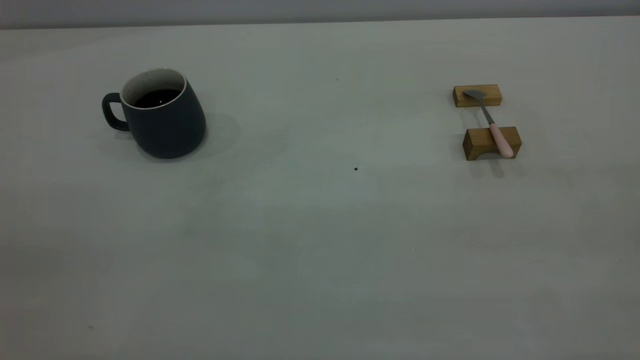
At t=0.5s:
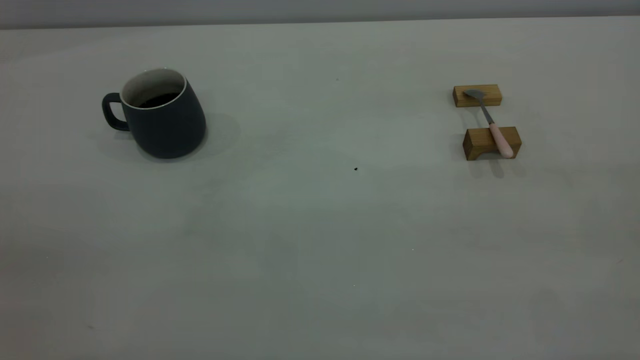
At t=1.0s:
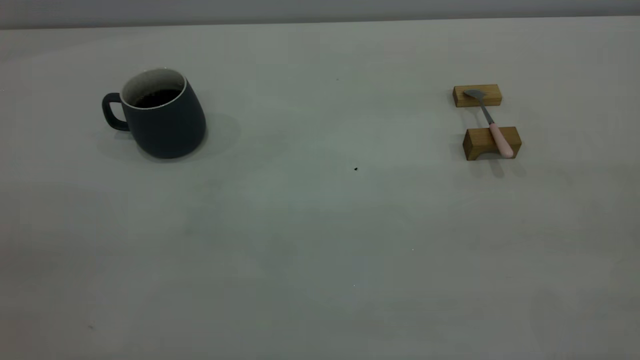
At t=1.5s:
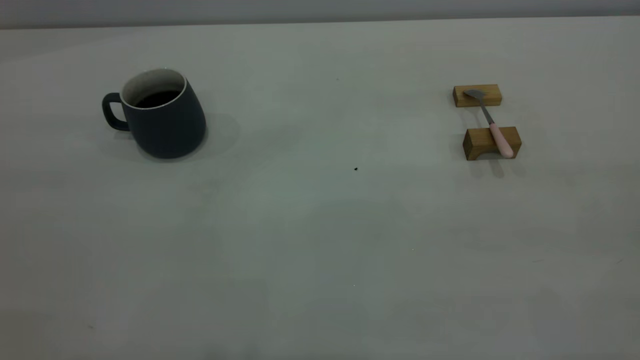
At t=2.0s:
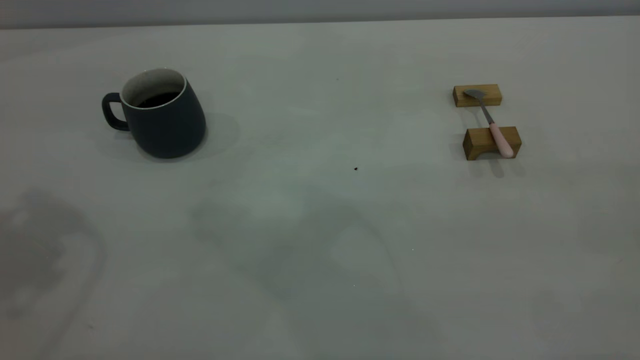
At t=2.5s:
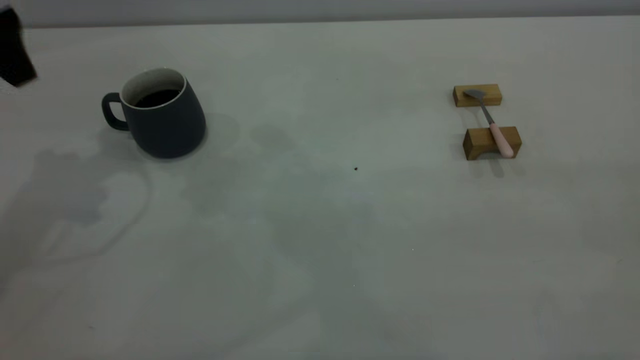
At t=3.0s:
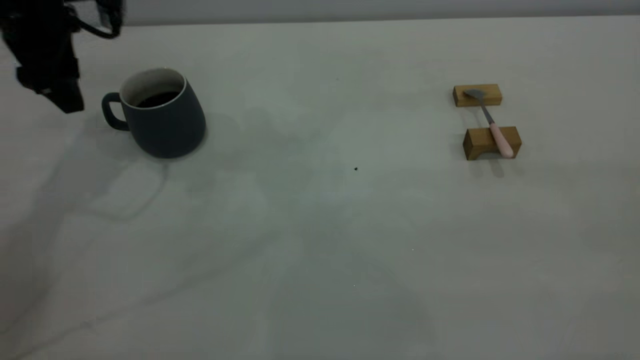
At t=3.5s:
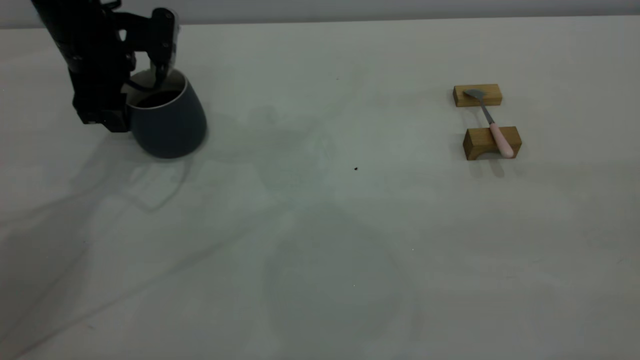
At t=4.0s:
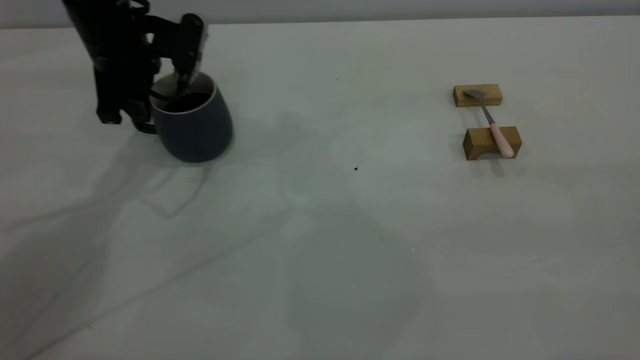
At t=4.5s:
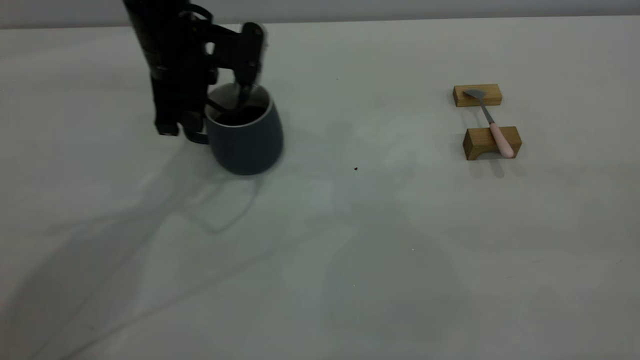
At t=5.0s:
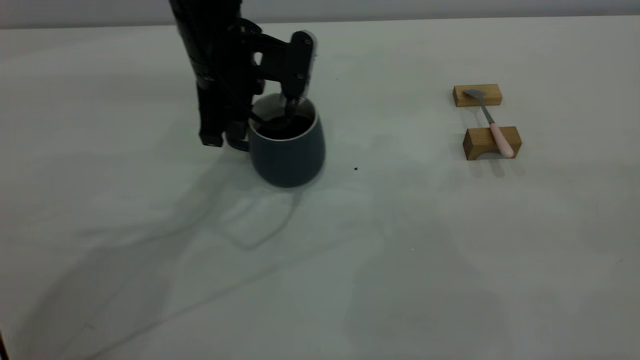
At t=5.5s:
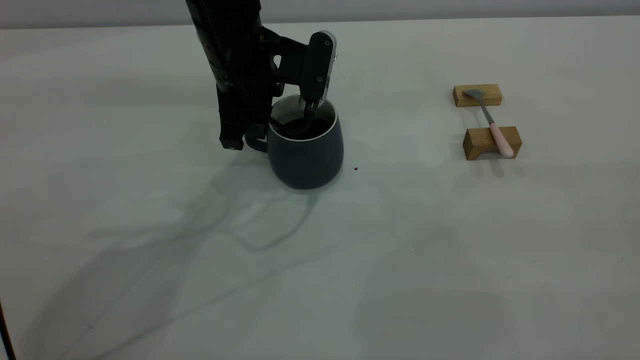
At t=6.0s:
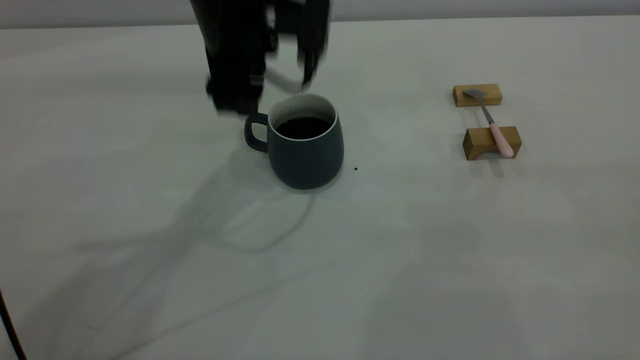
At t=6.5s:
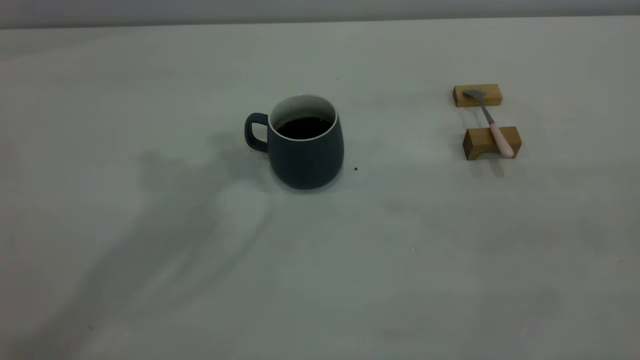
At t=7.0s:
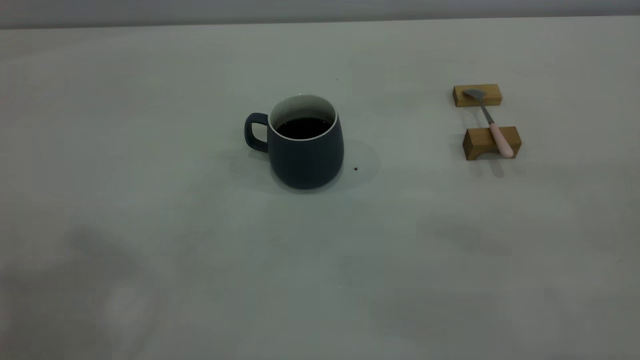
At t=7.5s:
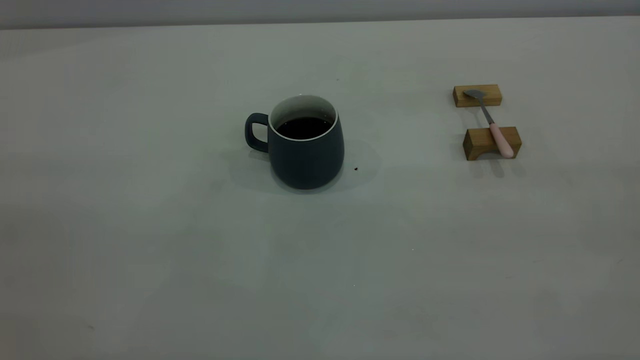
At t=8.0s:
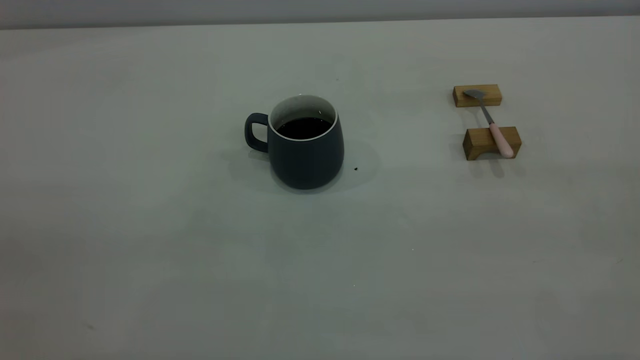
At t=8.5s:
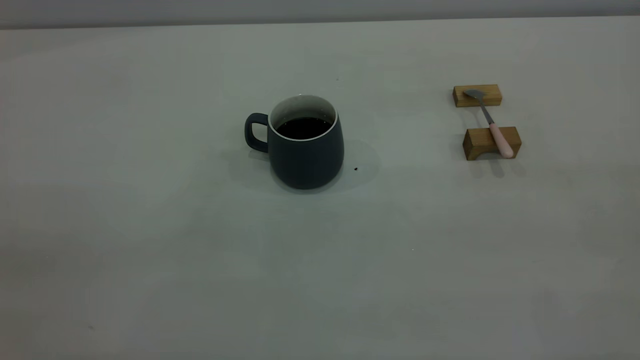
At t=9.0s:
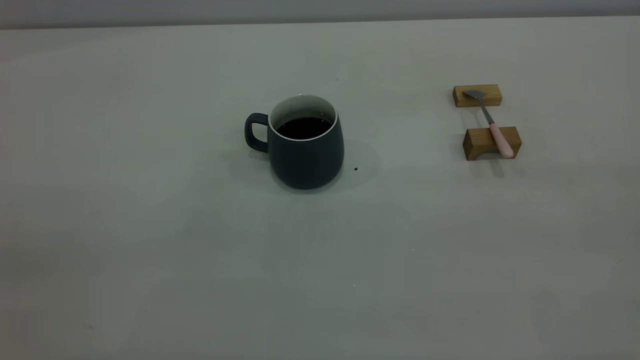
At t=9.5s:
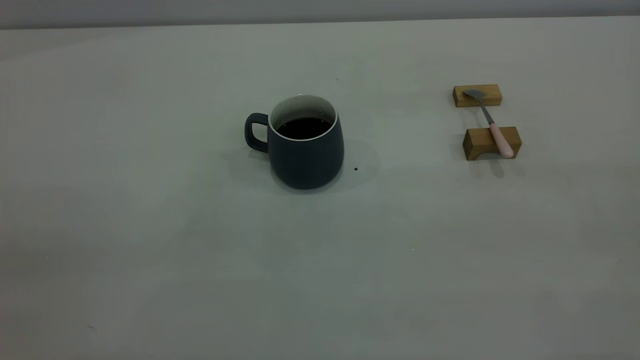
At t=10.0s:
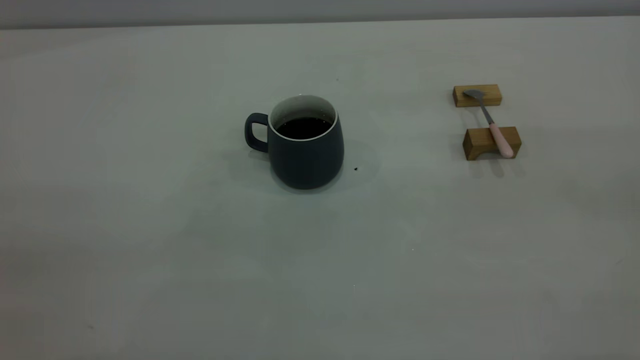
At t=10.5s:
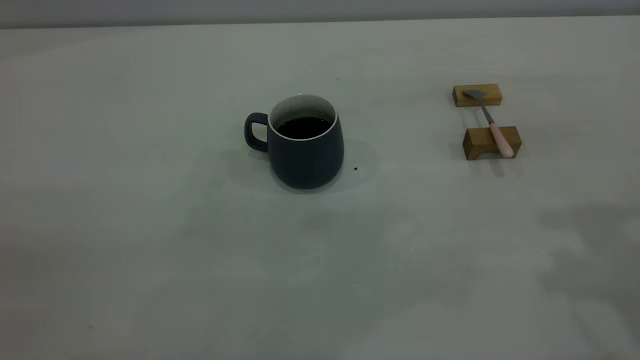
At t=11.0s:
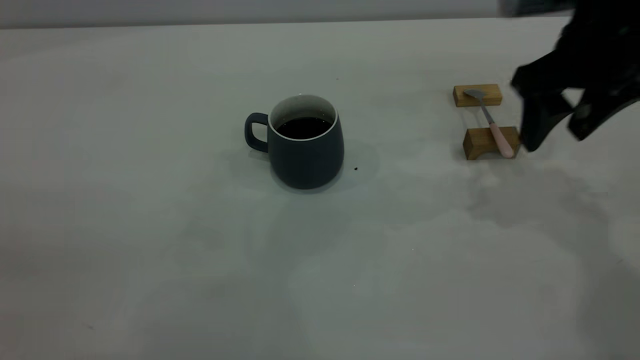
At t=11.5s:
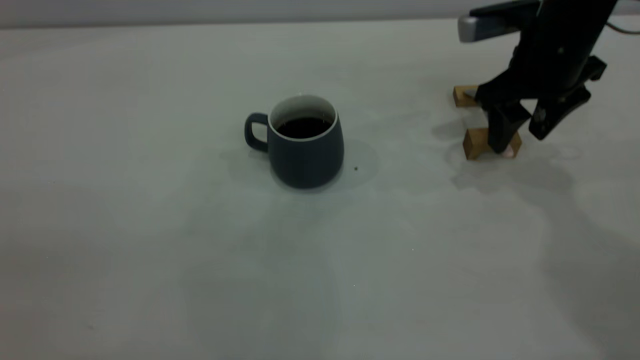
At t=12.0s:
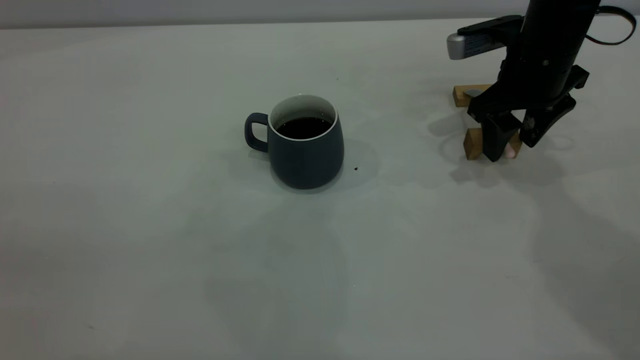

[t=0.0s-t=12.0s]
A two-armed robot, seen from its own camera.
Step, t=0.0s to t=6.0s: Move the cup with coffee to the center of view.
t=2.0s to t=4.0s: The left gripper moves downward and forward, approximately 30 cm, and closes.
t=4.0s to t=6.0s: The left gripper goes approximately 15 cm to the right and upward, and opens up.
t=6.0s to t=8.0s: The left gripper moves backward, to the left and upward, some 50 cm, and closes its fingers.
t=10.0s to t=12.0s: The right gripper moves forward and downward, approximately 40 cm.

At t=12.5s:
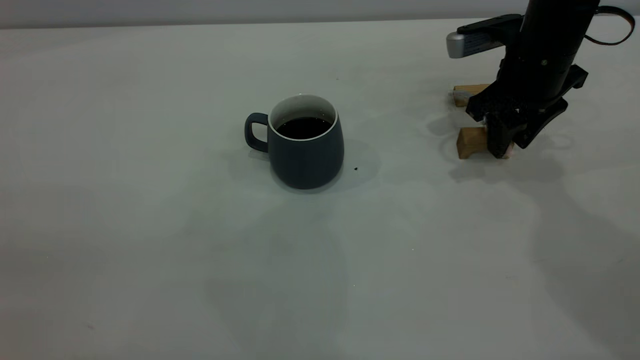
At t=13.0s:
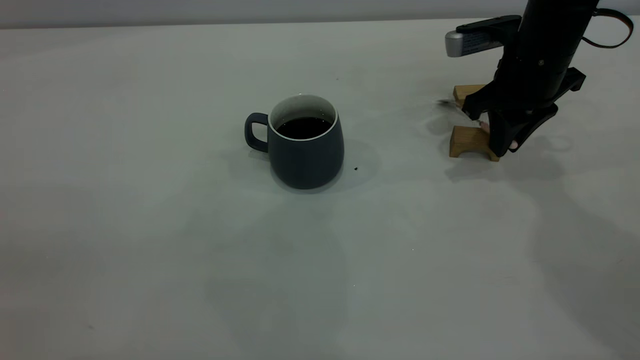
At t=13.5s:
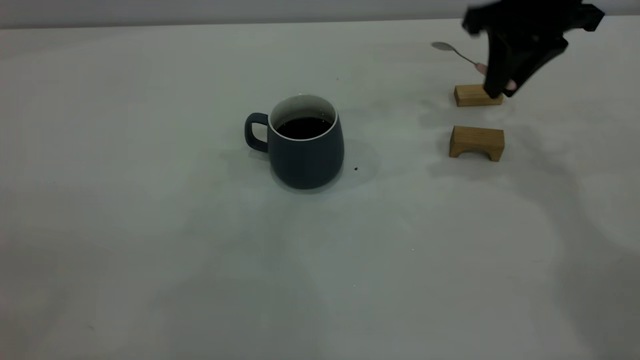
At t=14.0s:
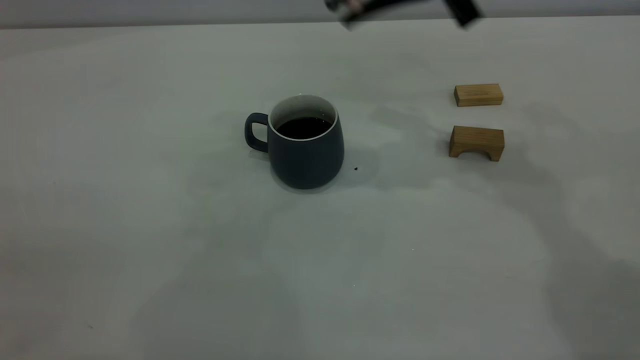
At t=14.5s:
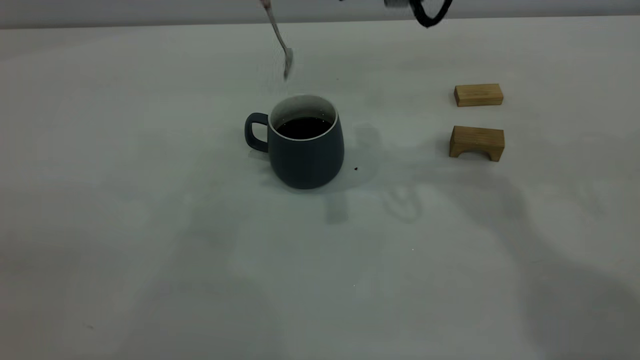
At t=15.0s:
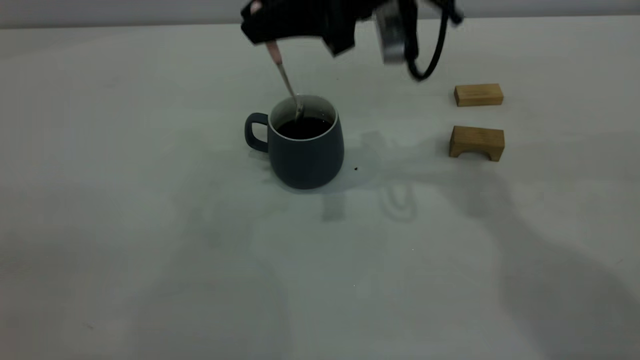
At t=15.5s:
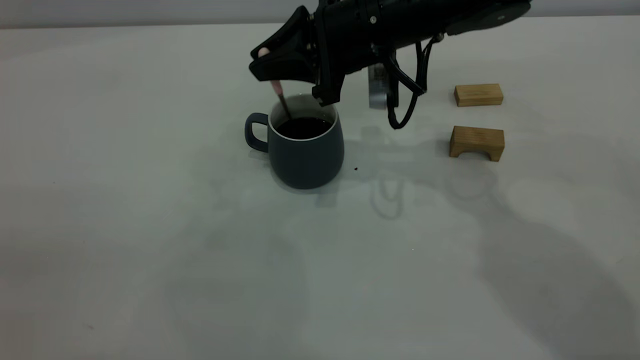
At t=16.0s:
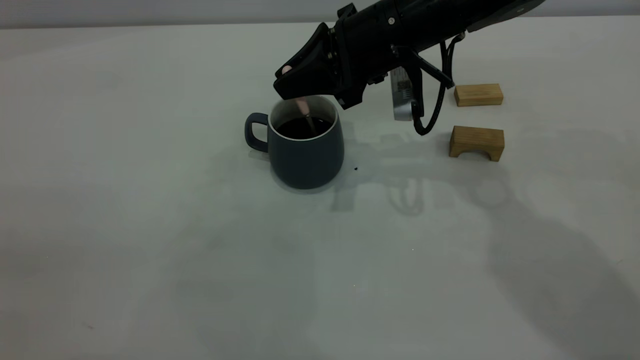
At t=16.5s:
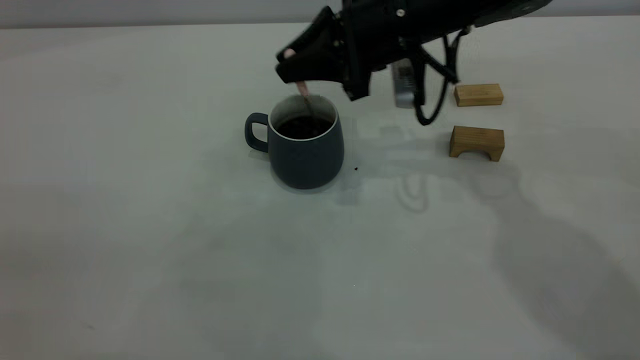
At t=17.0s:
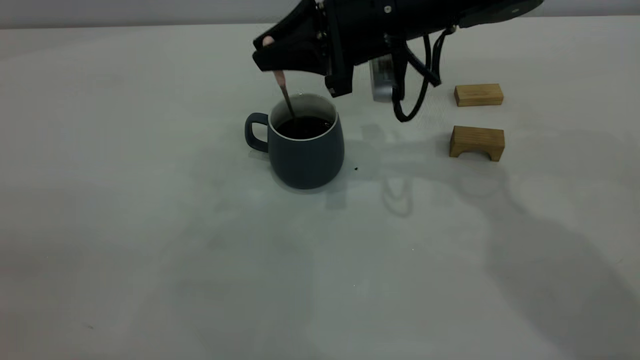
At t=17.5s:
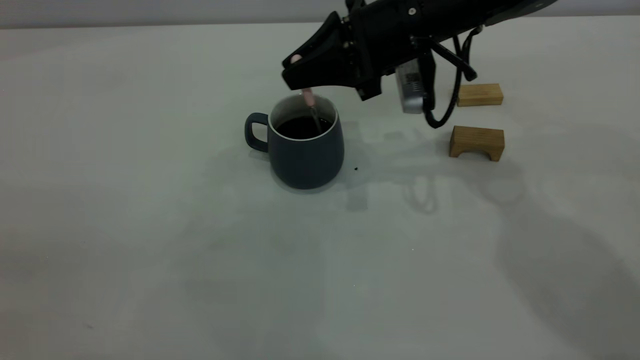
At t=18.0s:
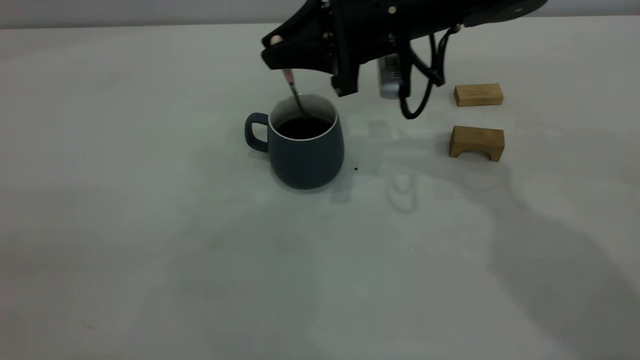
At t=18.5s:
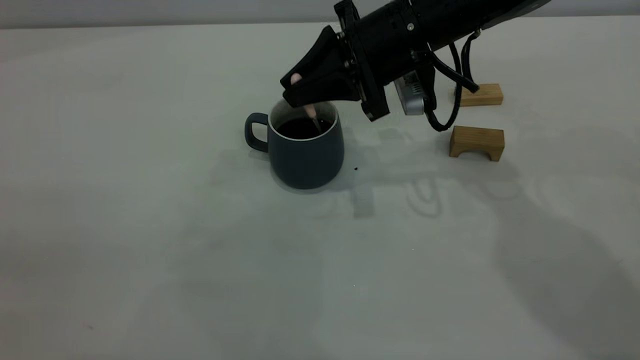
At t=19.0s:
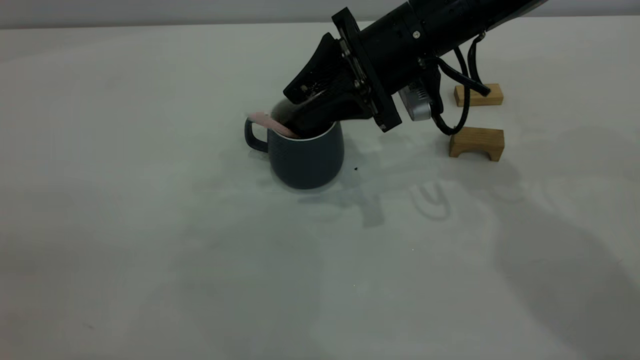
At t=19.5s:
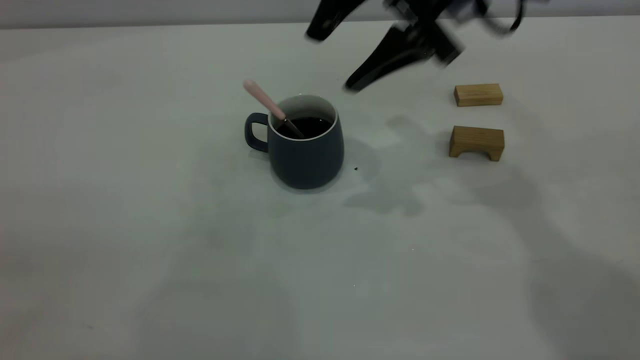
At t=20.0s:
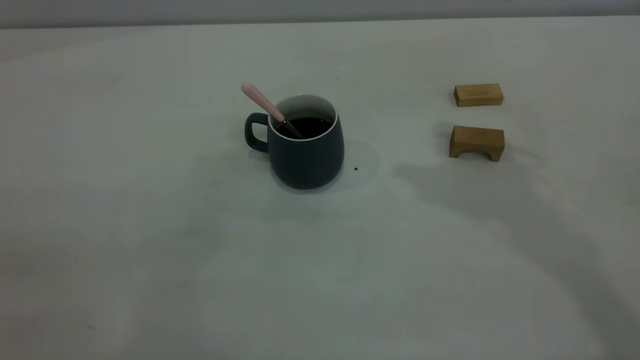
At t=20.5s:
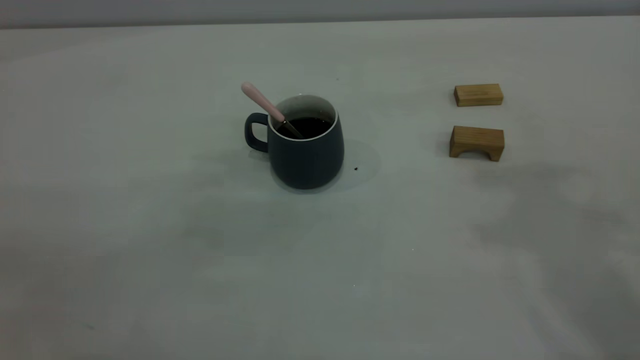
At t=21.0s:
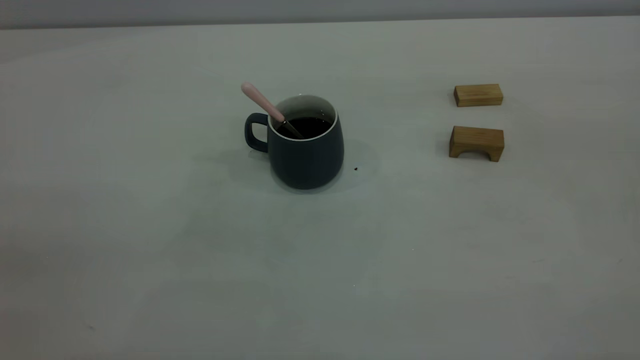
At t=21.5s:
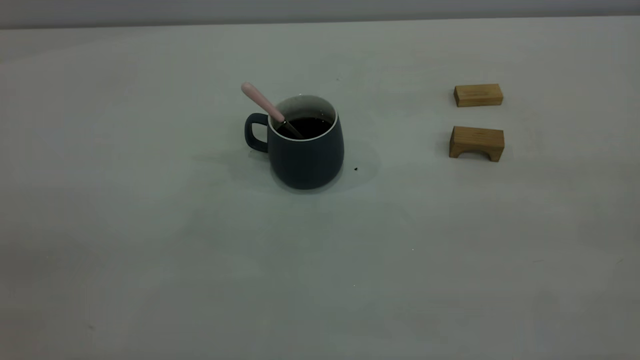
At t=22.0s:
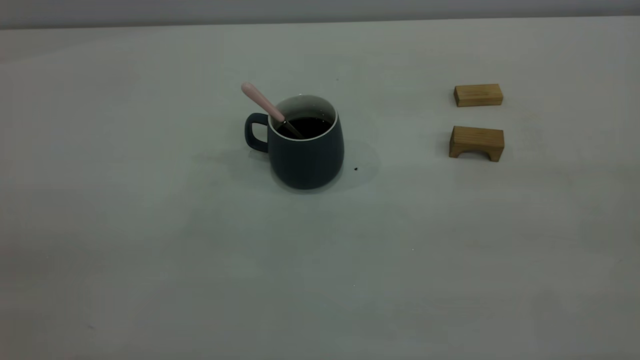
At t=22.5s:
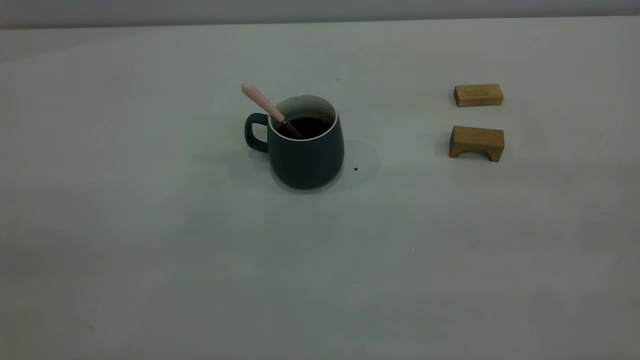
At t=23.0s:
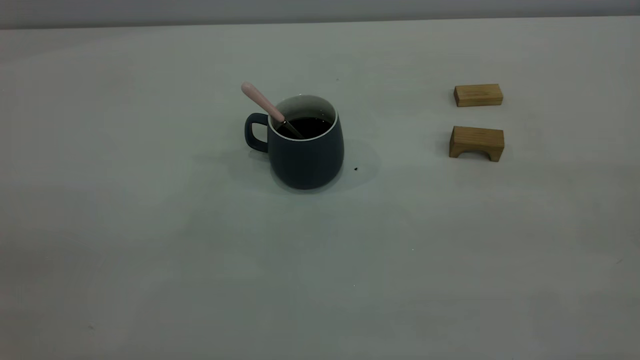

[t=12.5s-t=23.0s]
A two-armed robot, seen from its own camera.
Step, t=14.0s to t=19.0s: Stir the coffee in the cup.
t=12.5s to t=14.5s: The right gripper heads upward and to the left, covering roughly 20 cm, and closes its fingers.
t=14.5s to t=16.5s: The right gripper travels downward by about 10 cm.
t=16.5s to t=19.0s: The right gripper opens up.
t=19.0s to t=21.0s: The right gripper goes some 50 cm backward, upward and to the right, and closes up.
